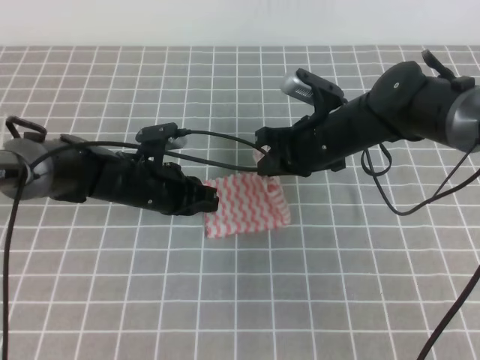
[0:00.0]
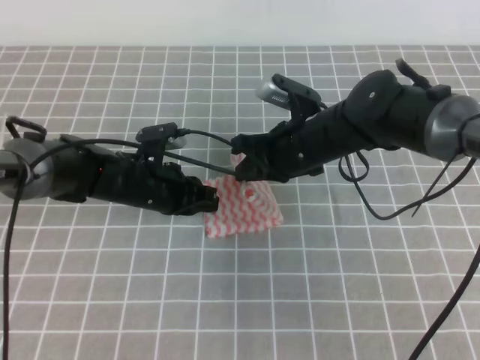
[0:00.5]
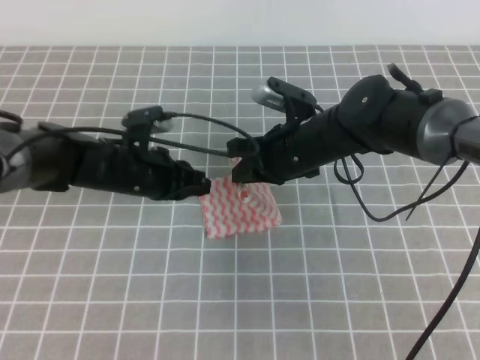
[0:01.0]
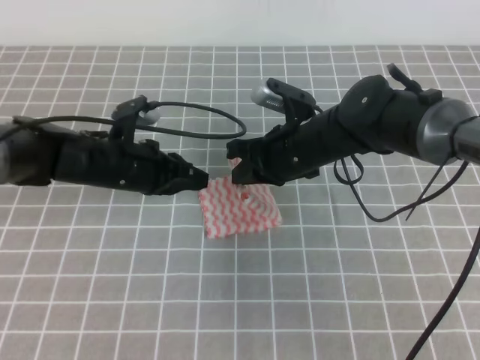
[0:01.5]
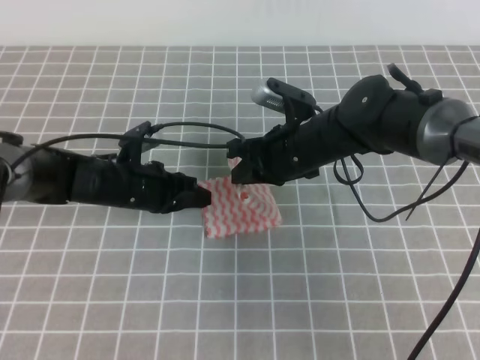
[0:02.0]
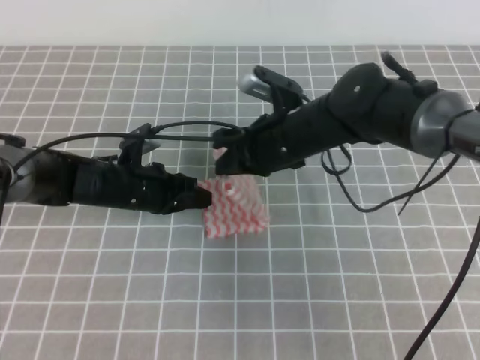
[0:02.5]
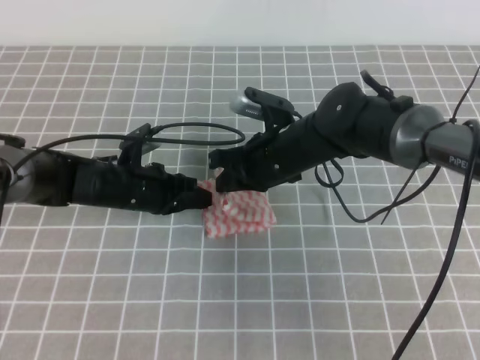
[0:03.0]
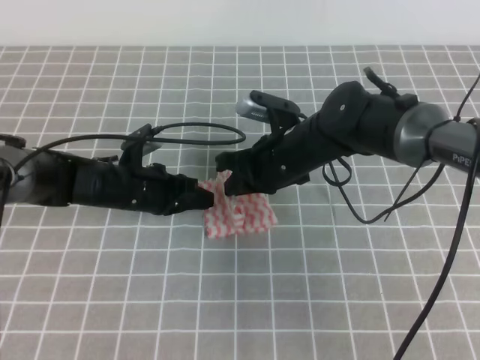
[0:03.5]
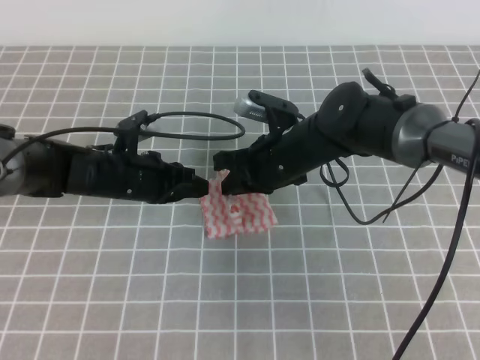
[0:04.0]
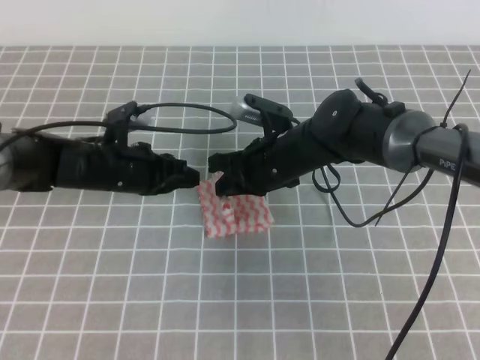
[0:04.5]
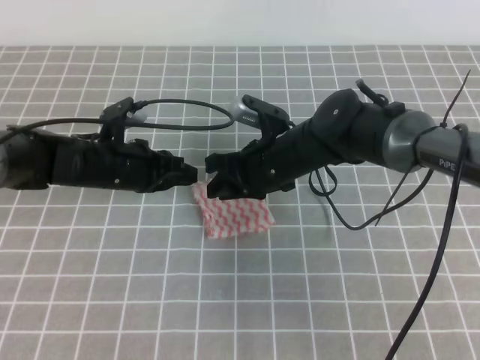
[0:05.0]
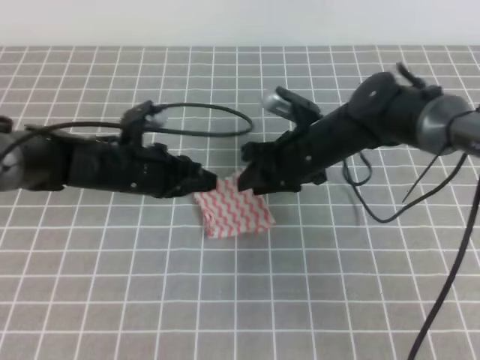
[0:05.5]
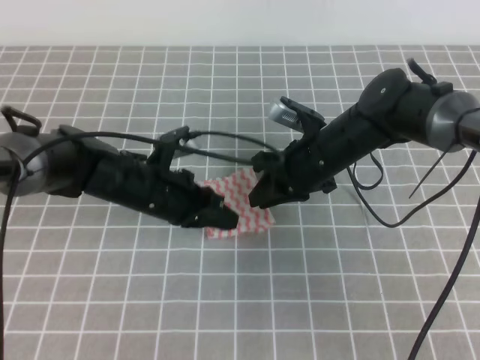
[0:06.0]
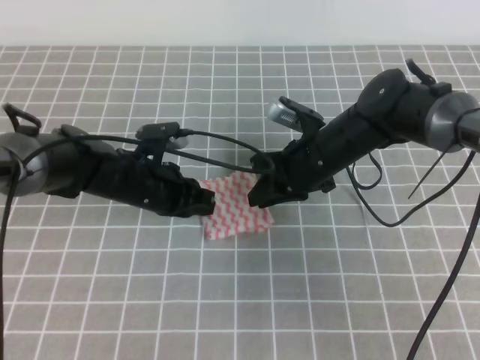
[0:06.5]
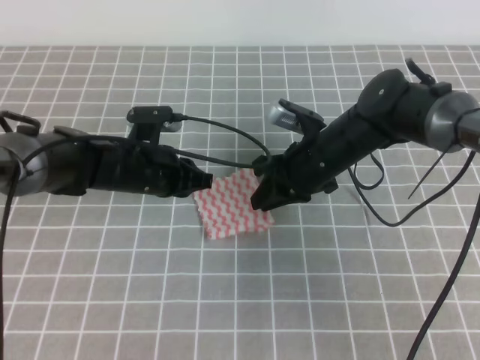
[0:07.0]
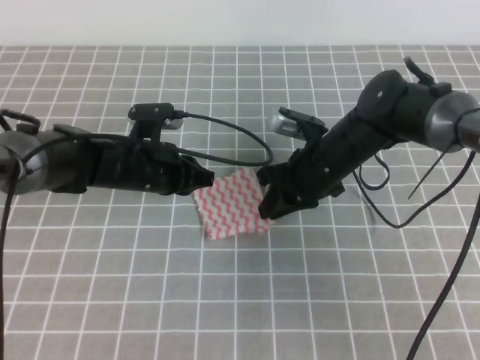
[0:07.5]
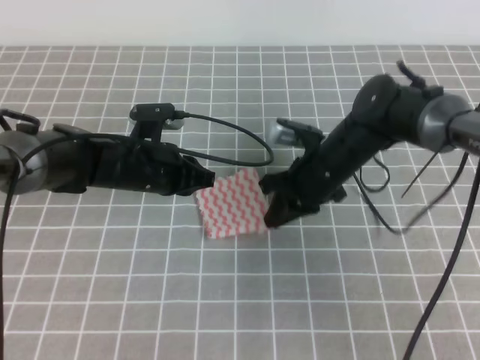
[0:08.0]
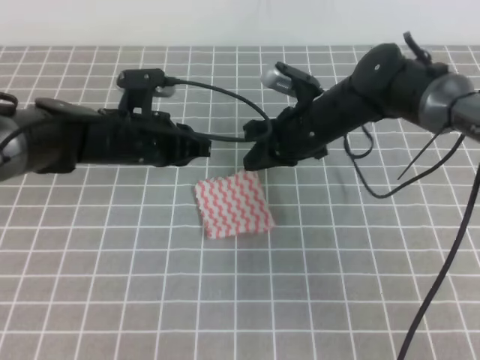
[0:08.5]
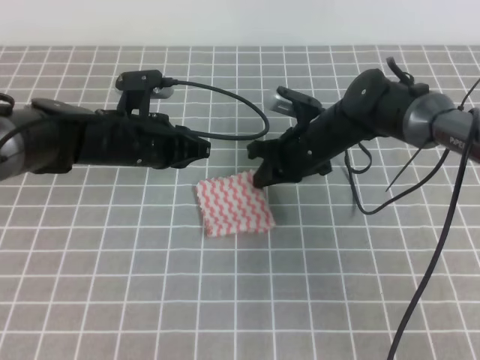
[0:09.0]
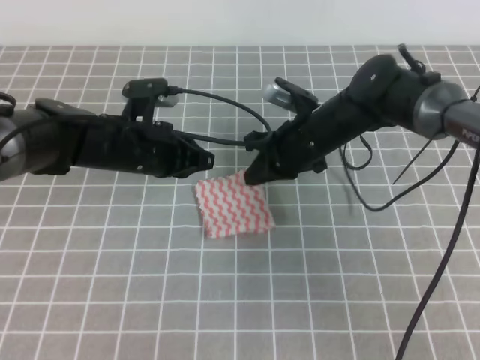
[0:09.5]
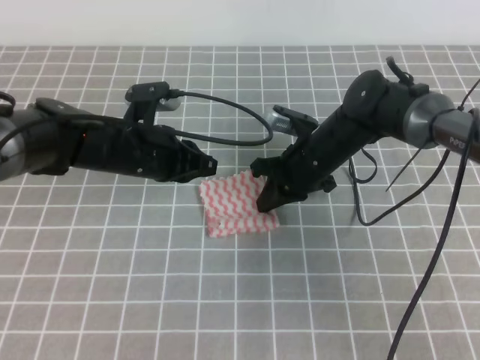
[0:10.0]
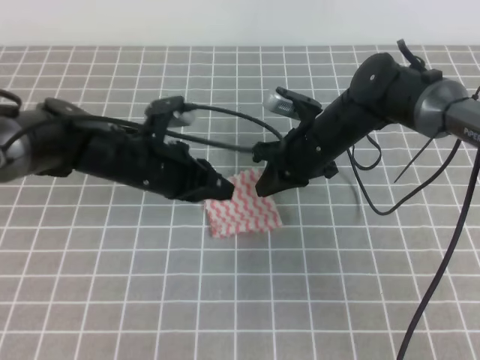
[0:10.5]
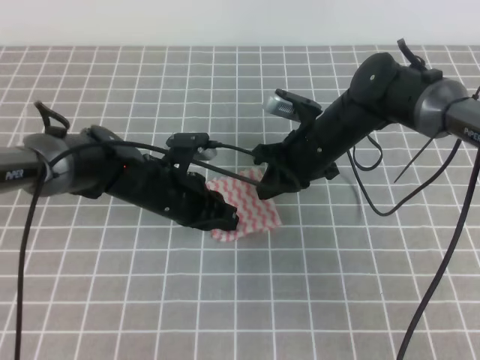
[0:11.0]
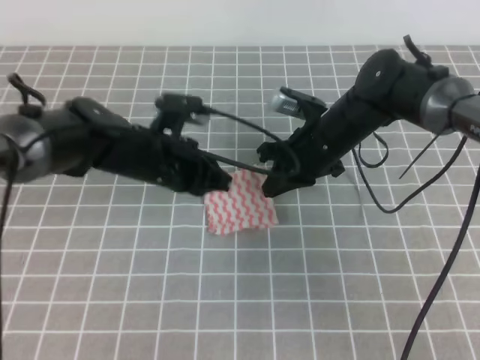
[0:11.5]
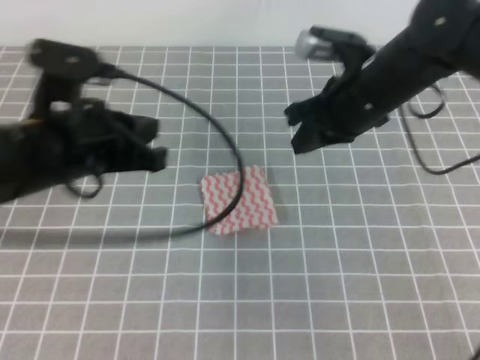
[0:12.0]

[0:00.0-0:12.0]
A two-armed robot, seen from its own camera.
0:00.0 to 0:04.0: The grippers stay close to where they were, moving slightly.
0:04.0 to 0:06.0: The right gripper opens its fingers.
0:08.0 to 0:10.0: There are only small adjustments of the grippers.
0:10.0 to 0:12.0: The left gripper moves backward and upward, roughly 15 cm. Meanwhile the right gripper heads upward, covering about 10 cm.

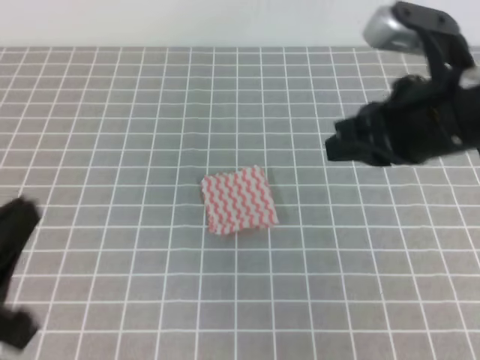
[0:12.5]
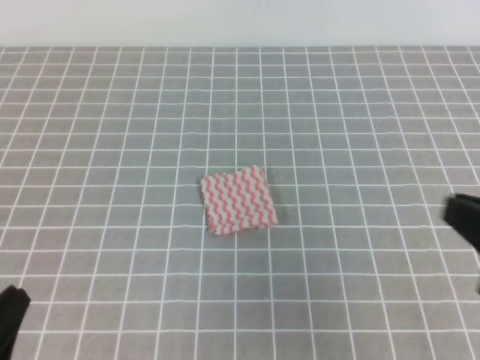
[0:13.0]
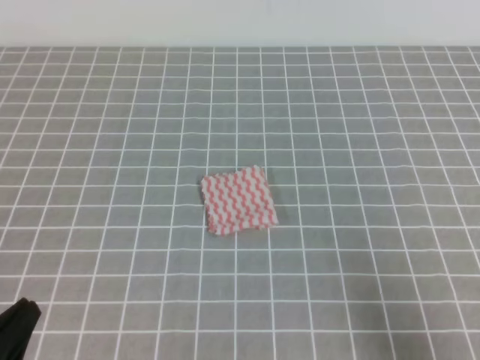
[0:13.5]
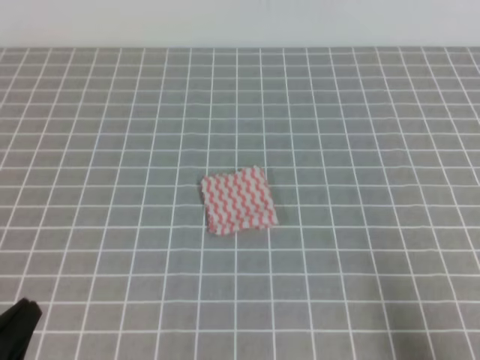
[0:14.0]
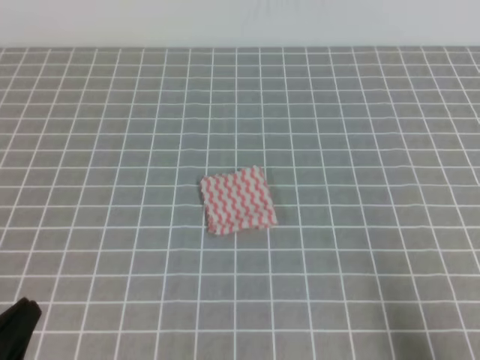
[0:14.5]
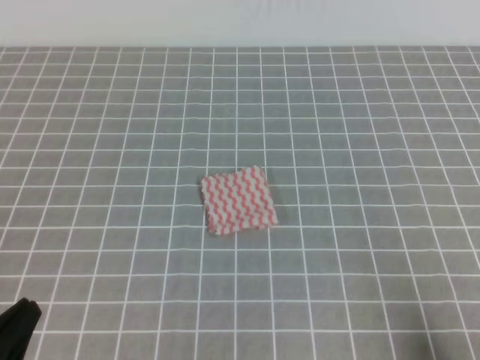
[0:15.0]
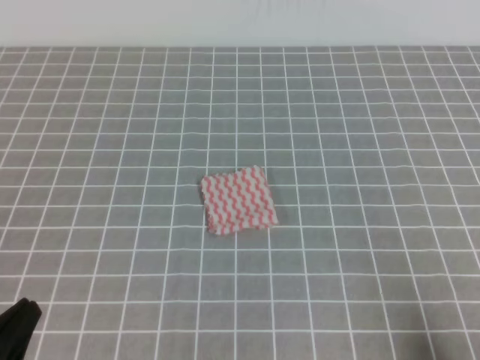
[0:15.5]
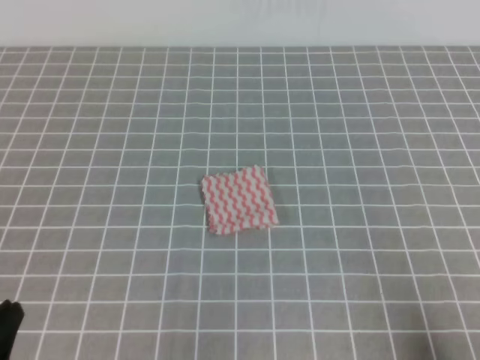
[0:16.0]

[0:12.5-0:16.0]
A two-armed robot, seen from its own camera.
Step, 0:12.5 to 0:16.0: Fold the towel.
0:12.5 to 0:14.5: The right gripper is displaced backward, downward and to the right by some 30 cm. The left gripper shifts roughly 10 cm downward.
0:14.5 to 0:16.0: There are only small adjustments of the grippers.
